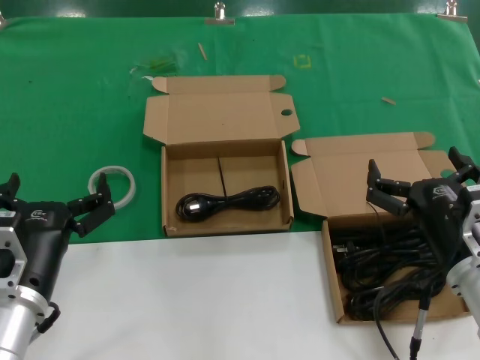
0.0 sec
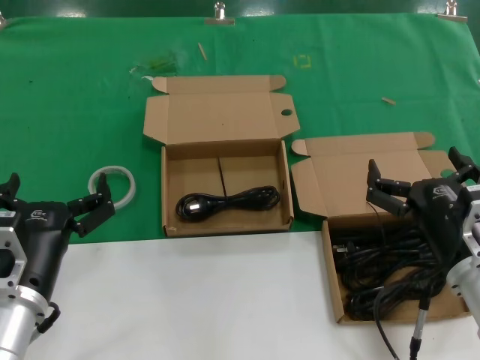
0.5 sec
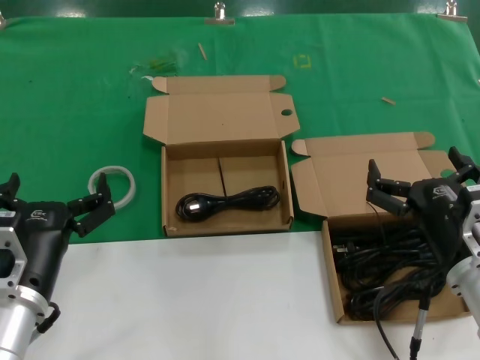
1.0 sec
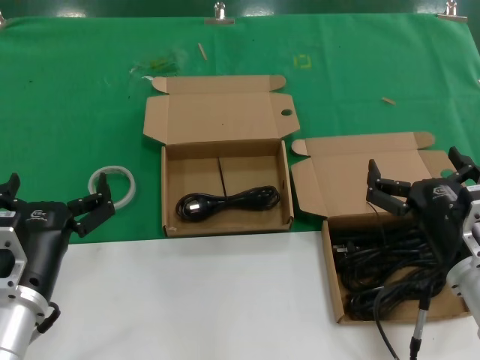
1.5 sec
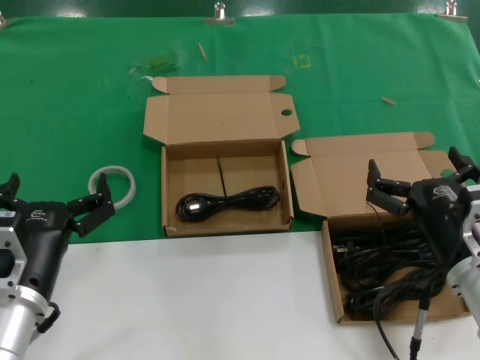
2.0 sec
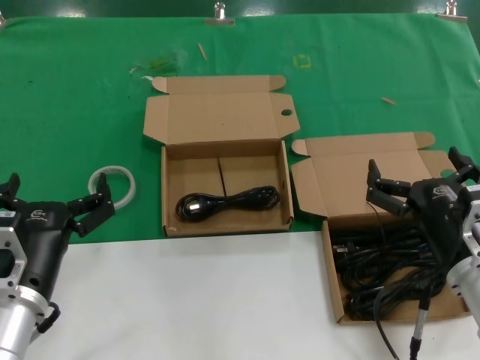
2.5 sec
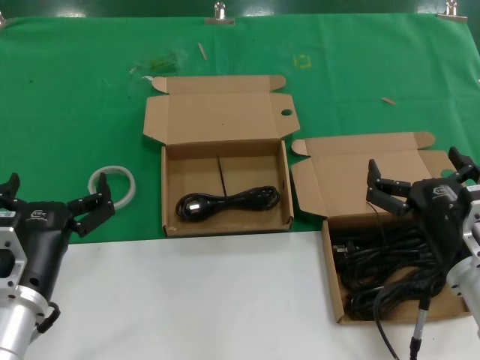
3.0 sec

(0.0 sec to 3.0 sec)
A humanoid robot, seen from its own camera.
Task of the whole recording: take the parts from the box containing them and put them into an empty box.
0.0 sec - 3.0 sec: Both hands stay about where they are.

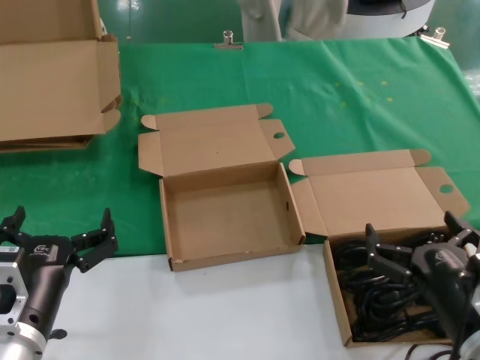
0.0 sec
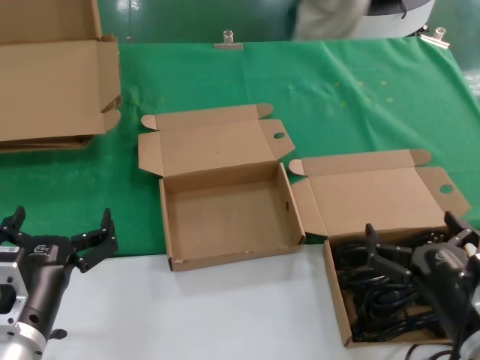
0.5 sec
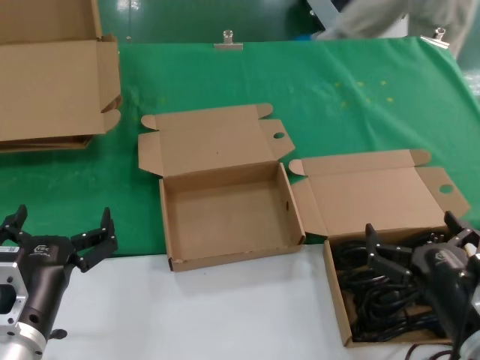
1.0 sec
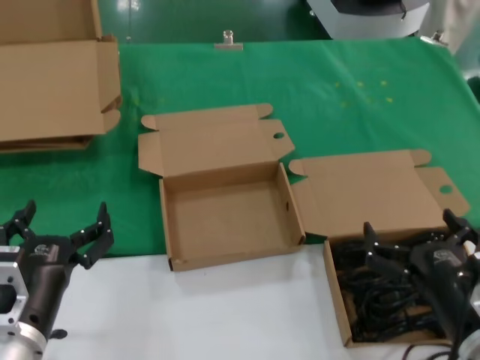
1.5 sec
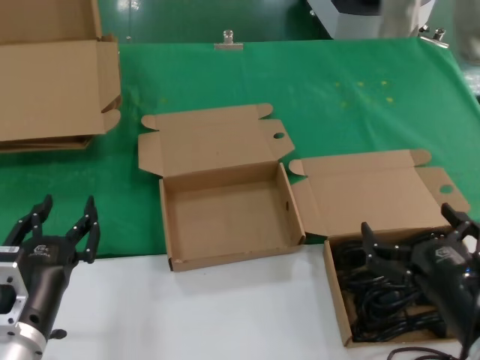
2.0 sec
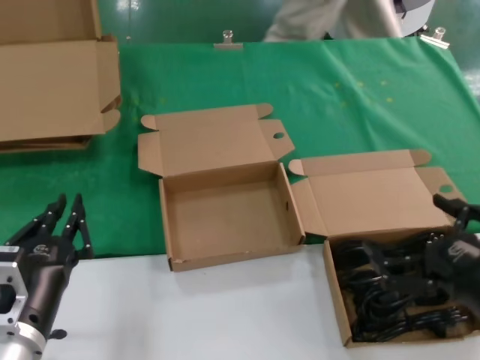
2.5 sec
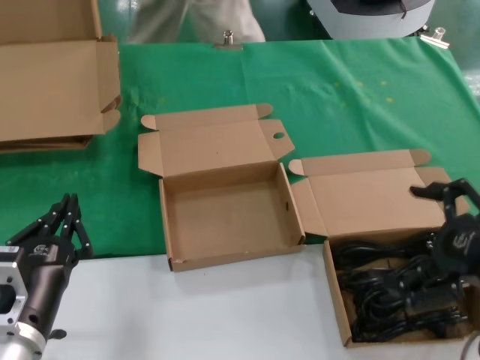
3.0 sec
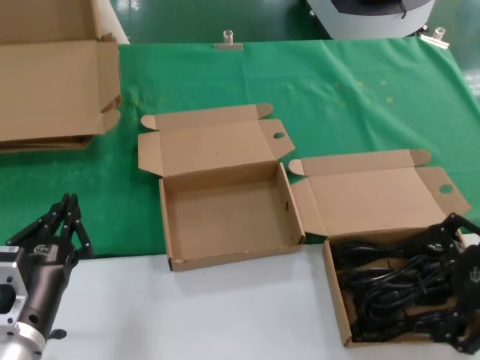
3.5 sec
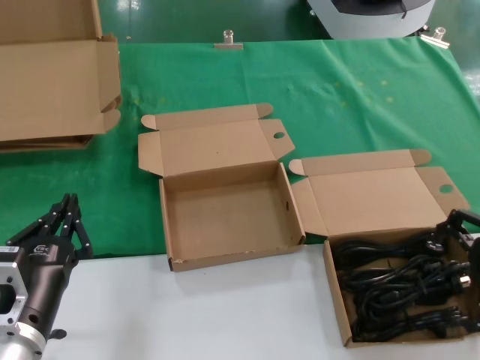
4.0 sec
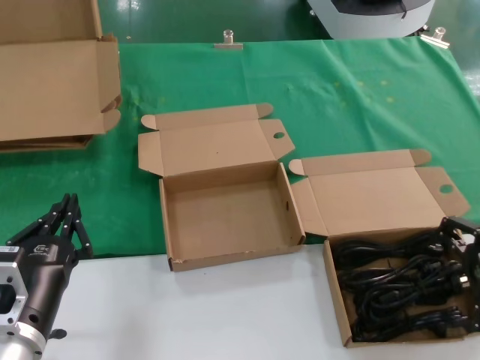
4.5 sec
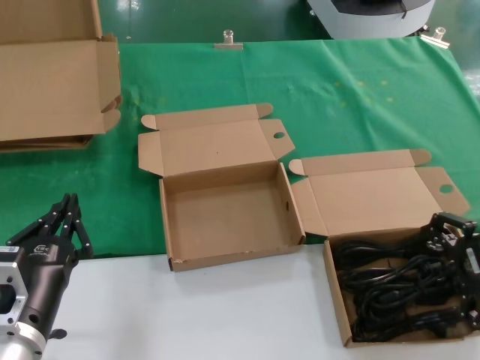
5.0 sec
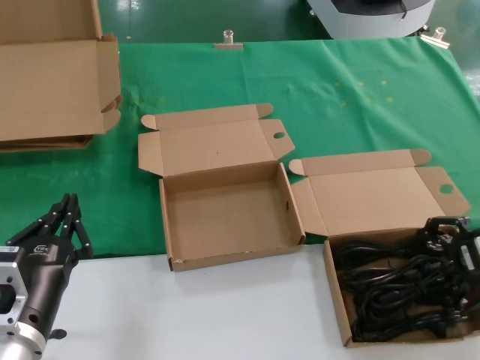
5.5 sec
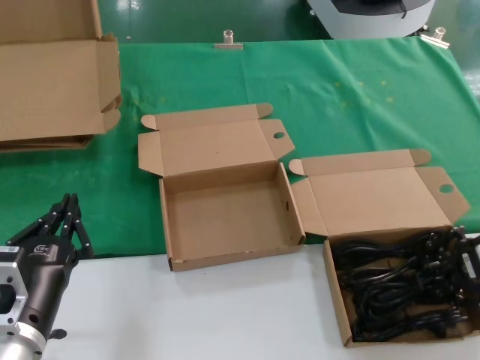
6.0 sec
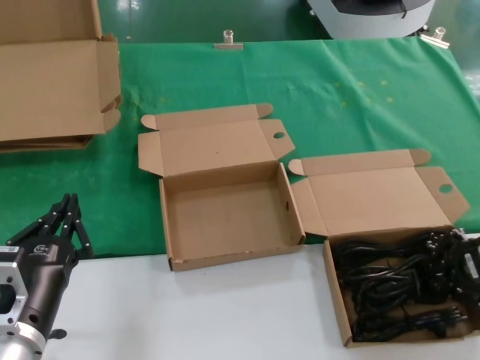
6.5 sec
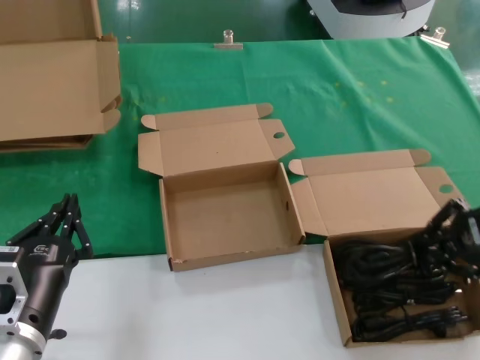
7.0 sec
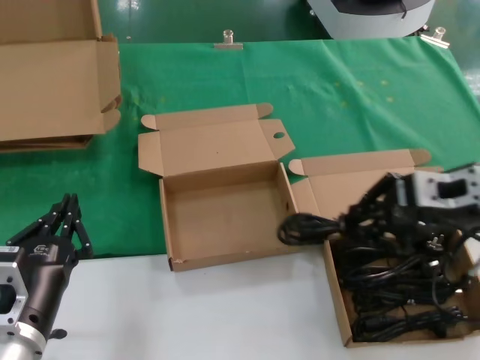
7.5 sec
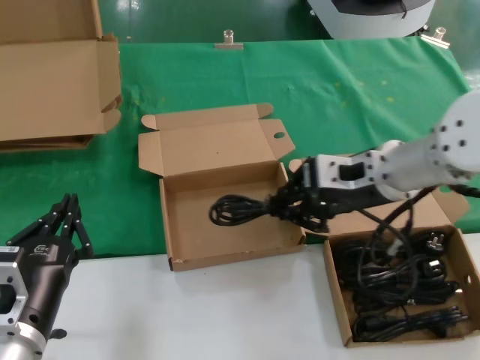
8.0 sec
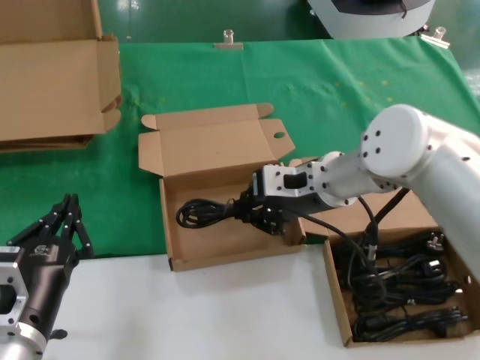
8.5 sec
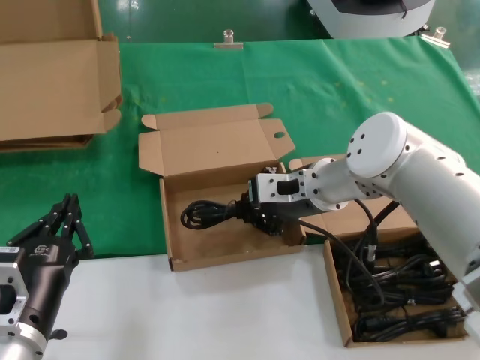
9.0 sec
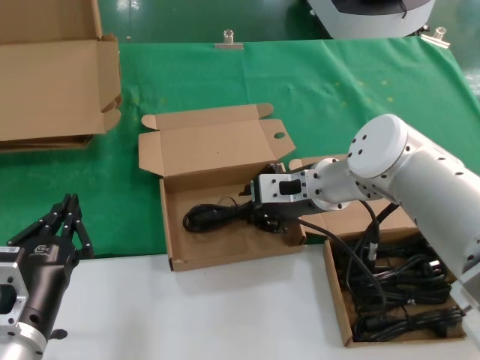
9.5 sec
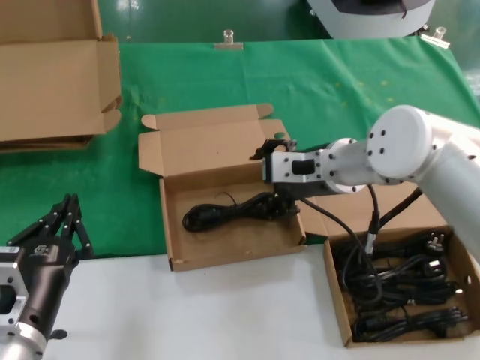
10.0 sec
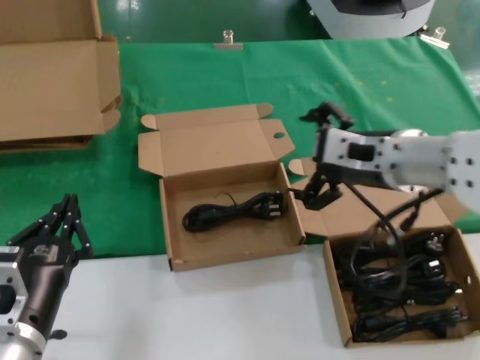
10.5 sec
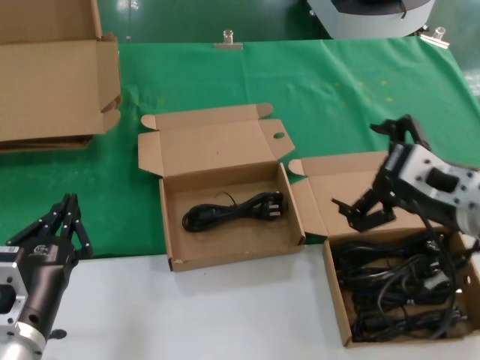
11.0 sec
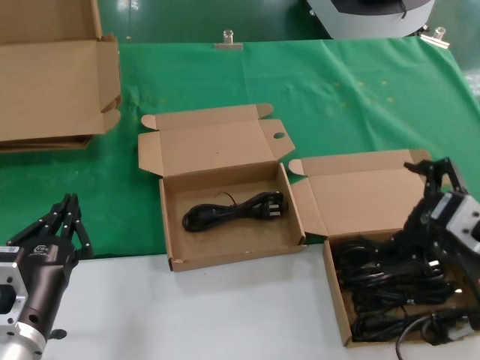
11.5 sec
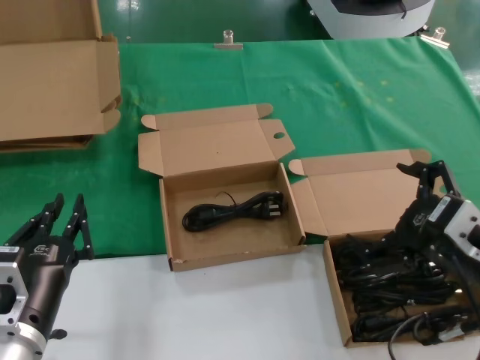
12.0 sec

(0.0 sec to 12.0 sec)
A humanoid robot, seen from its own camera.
Task of the whole recording: take the parts from the box containing them and put them into an empty box.
Step, 0.0 sec - 6.0 sec: Grasp the data cable.
Step, 6.5 sec - 9.5 sec: Place the data cable in the another box.
0.0 sec - 2.0 sec: The hands make only small movements.
2.0 sec - 4.0 sec: The right hand travels upward, to the right and forward by approximately 25 cm.
4.0 sec - 6.0 sec: The right hand is displaced downward and forward by some 10 cm.
6.0 sec - 8.0 sec: The right hand shifts some 20 cm to the left.
8.0 sec - 10.0 sec: The right hand travels to the left by some 5 cm.
10.0 sec - 12.0 sec: The right hand heads backward and to the right, covering roughly 25 cm.

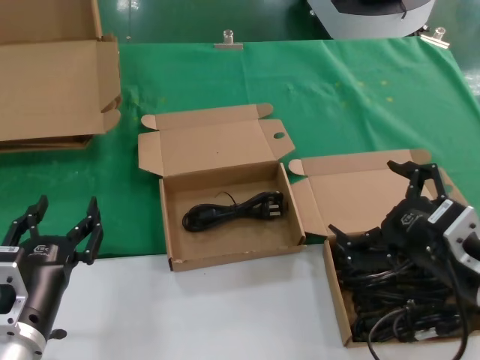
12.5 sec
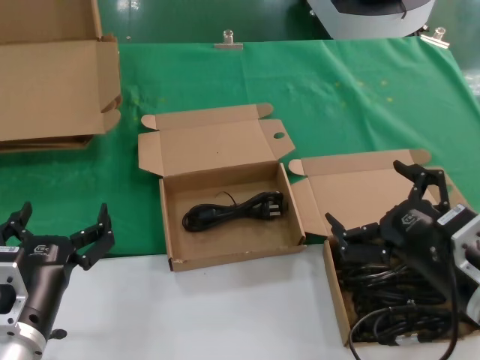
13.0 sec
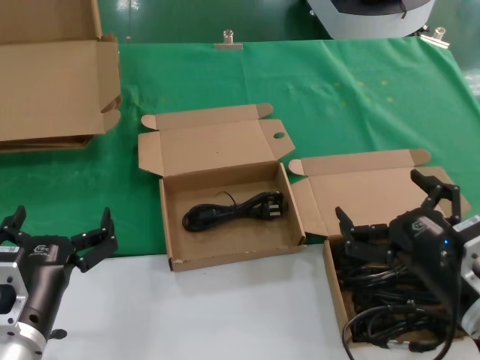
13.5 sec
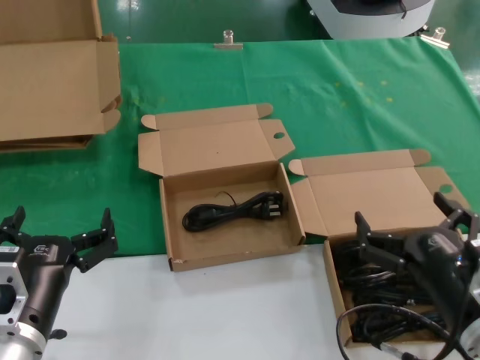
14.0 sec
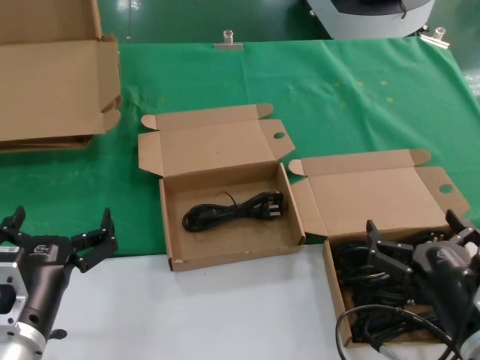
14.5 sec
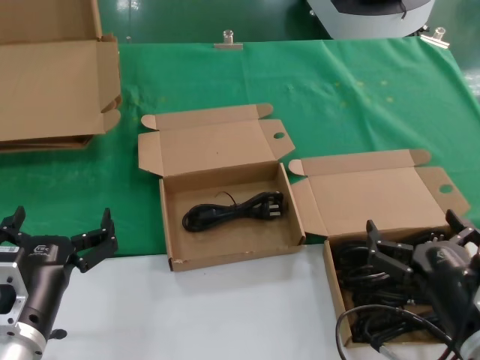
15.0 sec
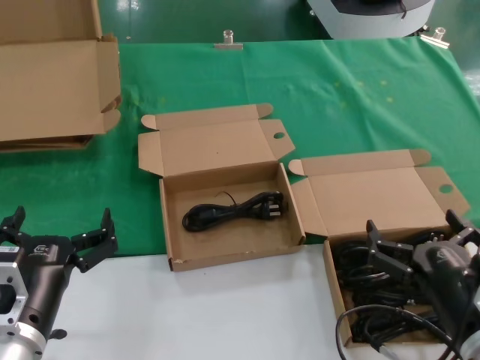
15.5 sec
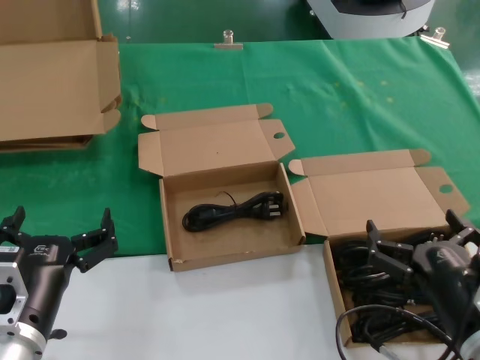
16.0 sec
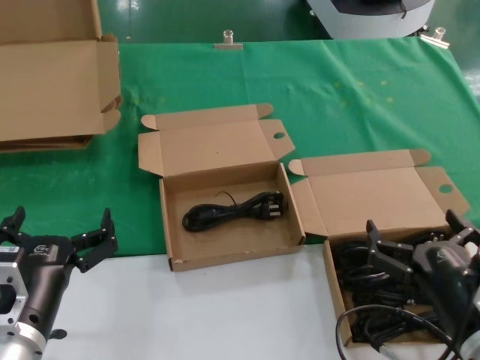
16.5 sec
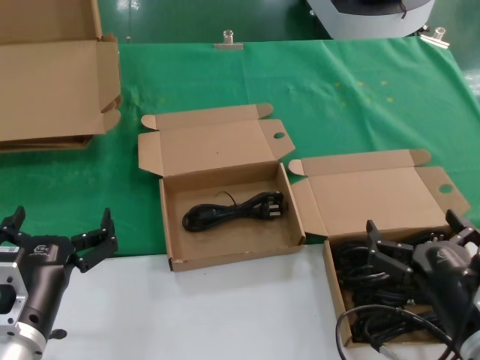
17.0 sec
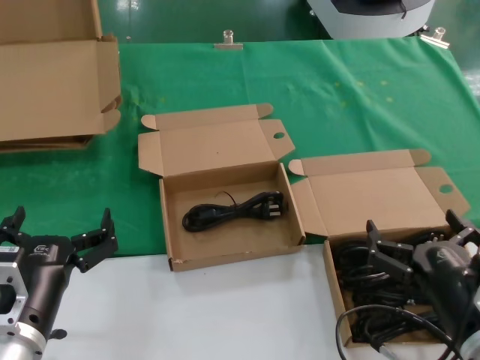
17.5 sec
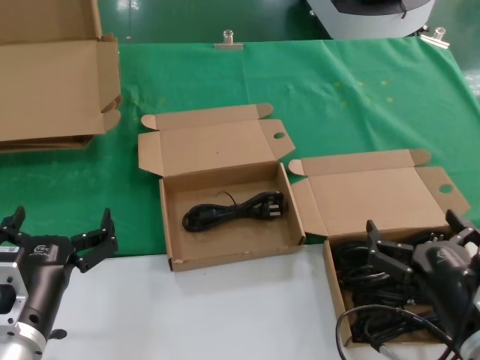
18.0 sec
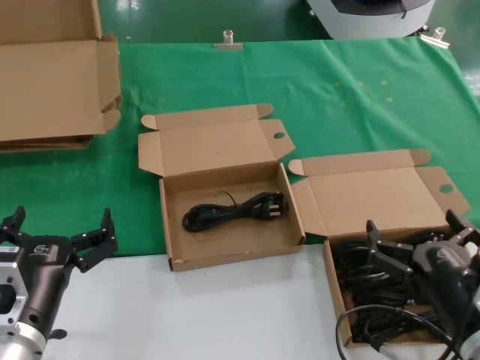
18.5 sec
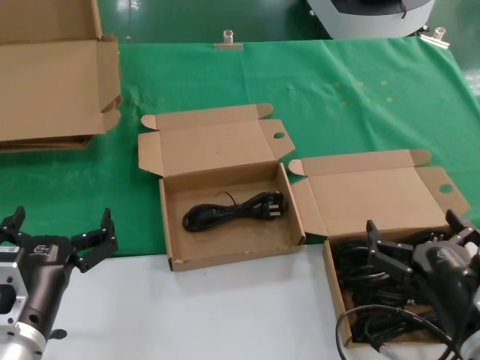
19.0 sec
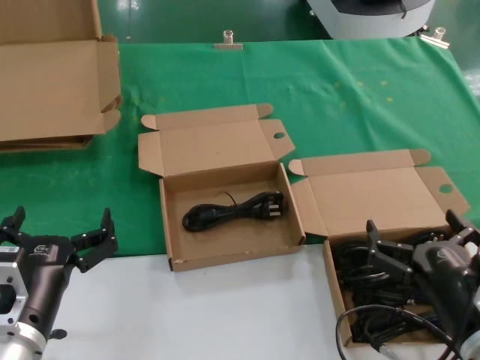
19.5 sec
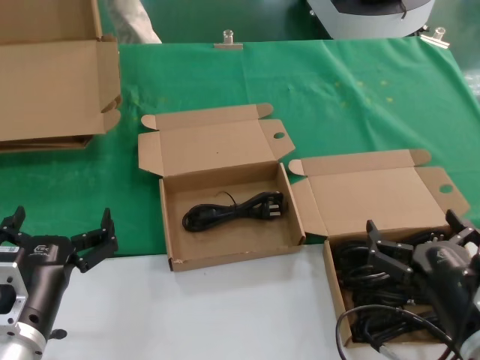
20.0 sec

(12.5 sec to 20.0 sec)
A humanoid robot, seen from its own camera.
Task of the whole recording: take the parts from the box containing them and put them into an empty box.
12.5 sec - 14.5 sec: The right hand heads downward, covering roughly 10 cm.
14.5 sec - 20.0 sec: The two hands keep their place.

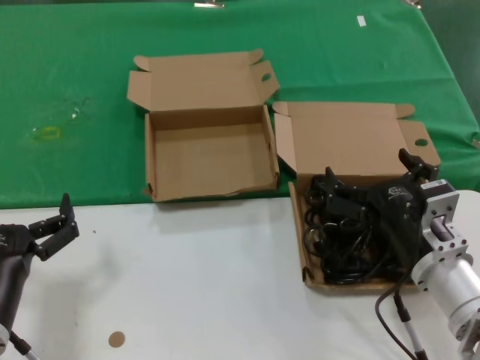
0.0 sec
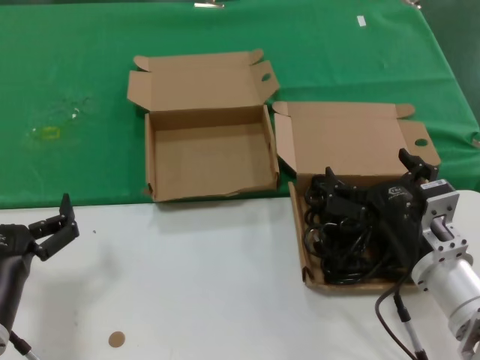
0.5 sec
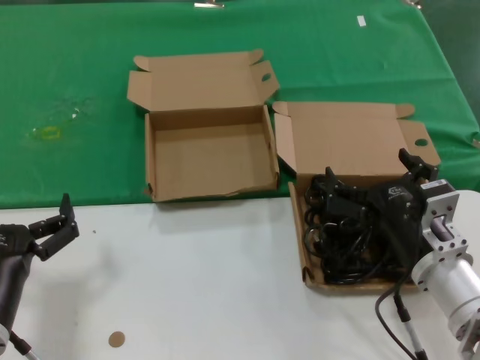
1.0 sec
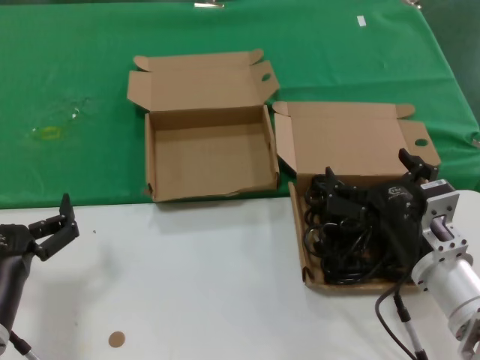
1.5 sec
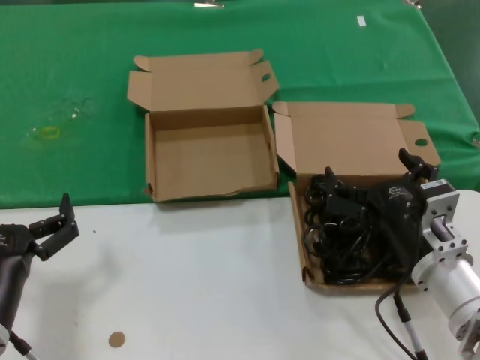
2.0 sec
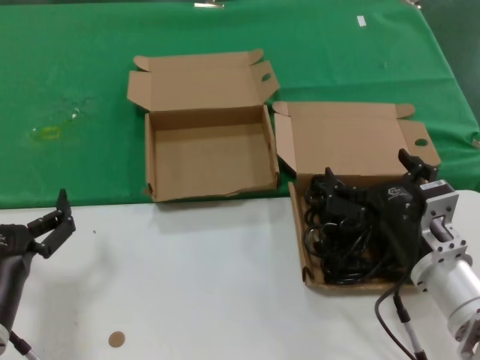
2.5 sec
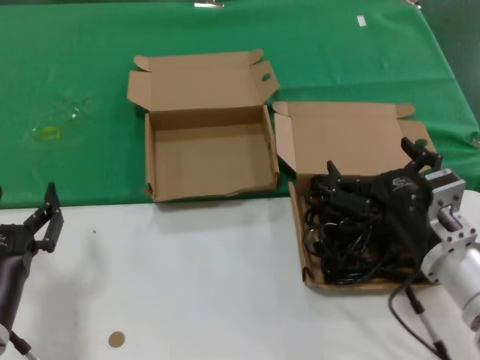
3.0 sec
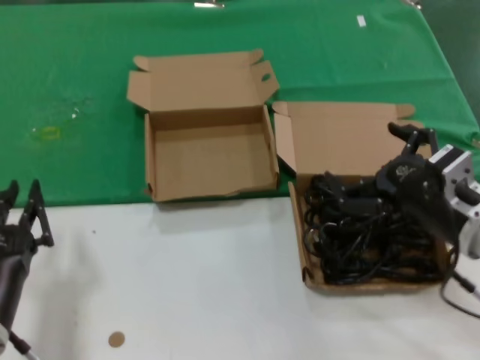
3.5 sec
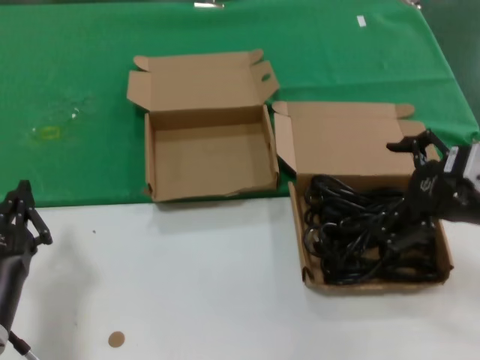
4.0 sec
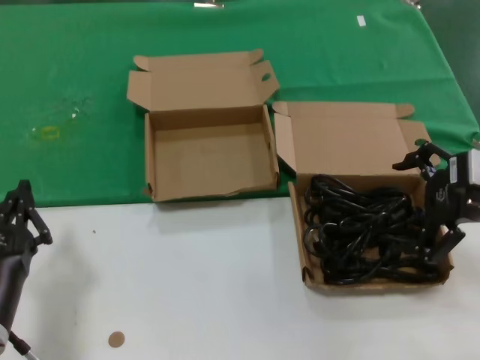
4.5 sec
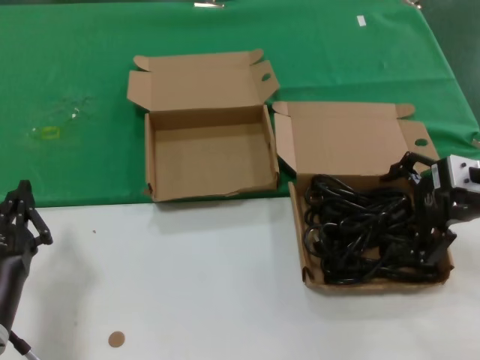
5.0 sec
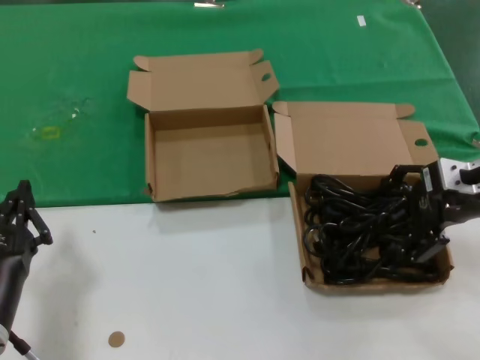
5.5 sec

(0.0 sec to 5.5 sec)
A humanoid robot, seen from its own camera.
Task of the whole recording: take the parts from the box containing them and put them into an empty box.
0.0 sec - 2.0 sec: The two hands keep their place.
2.0 sec - 3.5 sec: The right hand is displaced upward by roughly 5 cm.
3.5 sec - 5.5 sec: The right hand moves forward, upward and to the right, some 15 cm.
